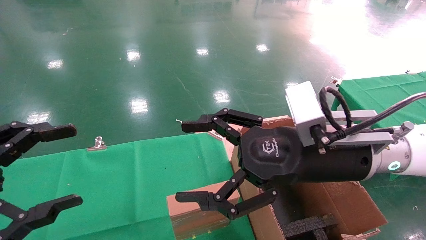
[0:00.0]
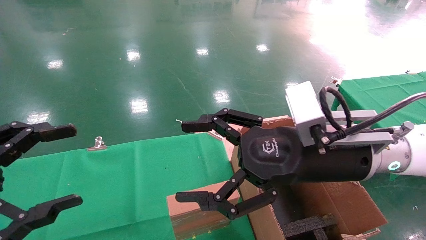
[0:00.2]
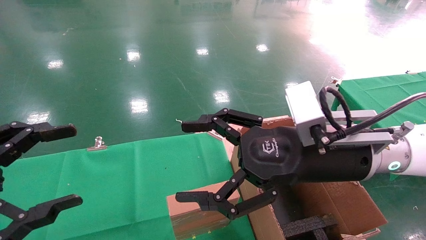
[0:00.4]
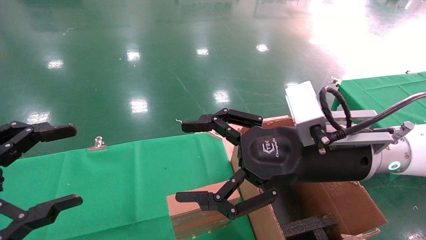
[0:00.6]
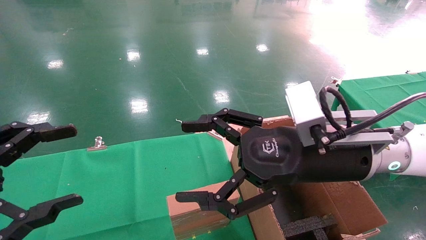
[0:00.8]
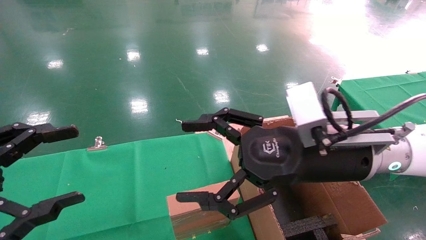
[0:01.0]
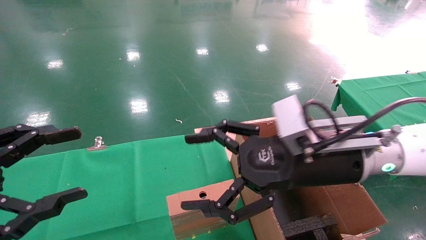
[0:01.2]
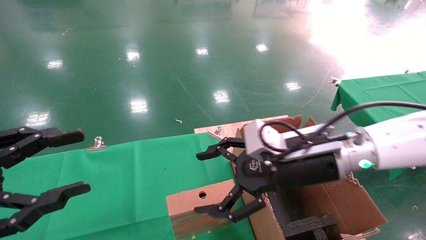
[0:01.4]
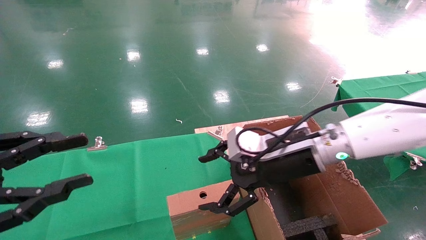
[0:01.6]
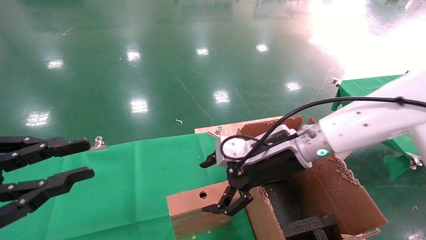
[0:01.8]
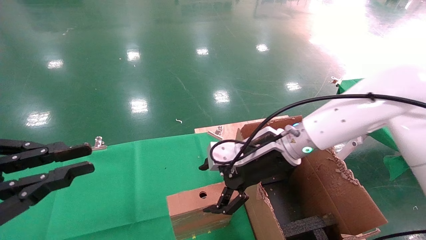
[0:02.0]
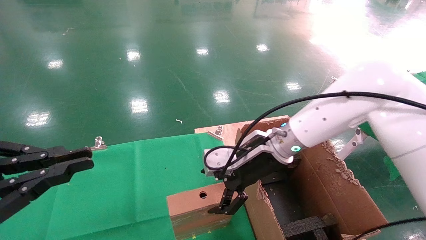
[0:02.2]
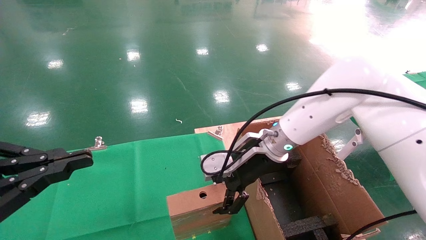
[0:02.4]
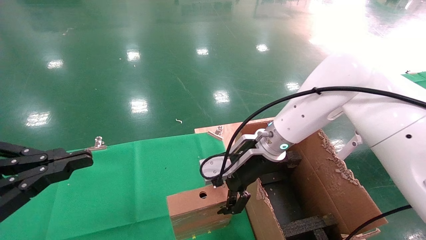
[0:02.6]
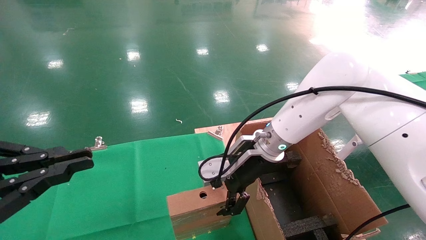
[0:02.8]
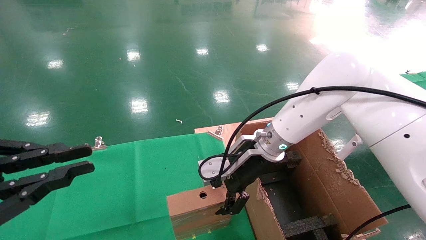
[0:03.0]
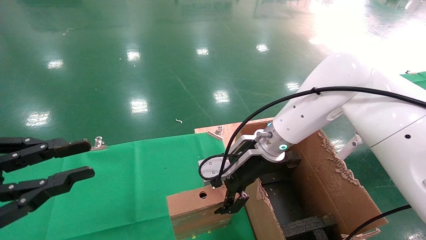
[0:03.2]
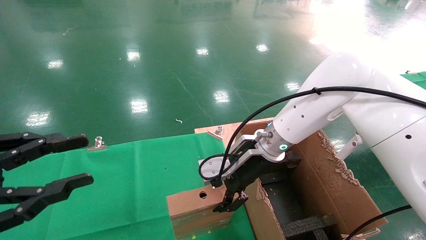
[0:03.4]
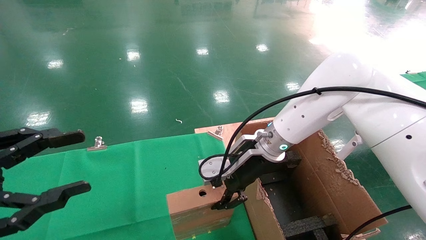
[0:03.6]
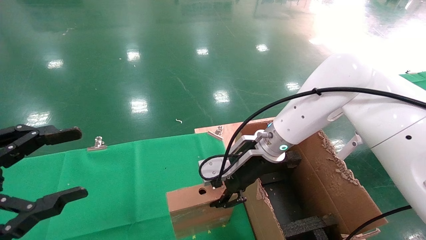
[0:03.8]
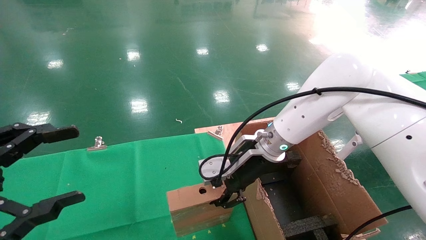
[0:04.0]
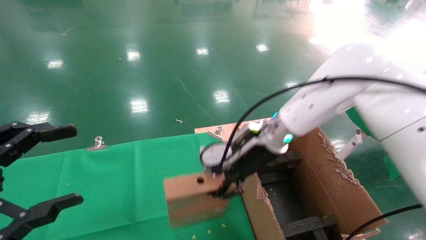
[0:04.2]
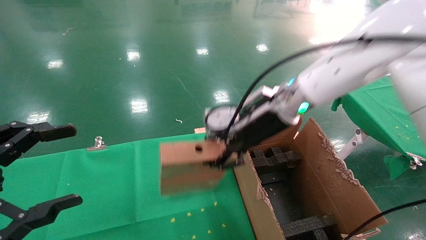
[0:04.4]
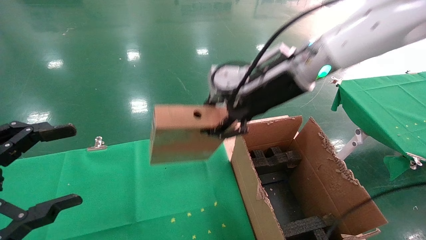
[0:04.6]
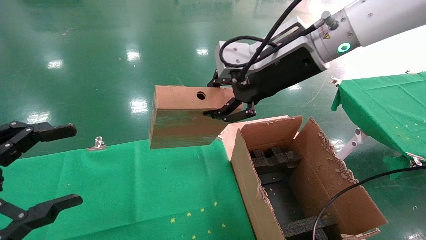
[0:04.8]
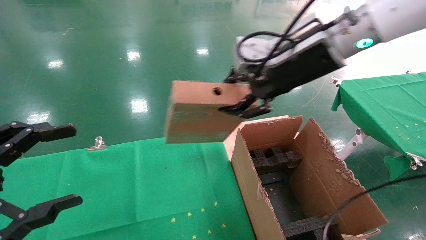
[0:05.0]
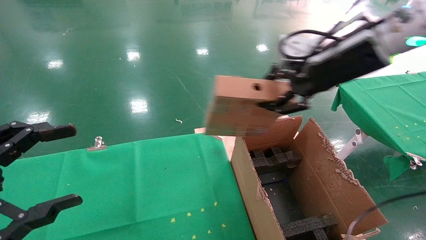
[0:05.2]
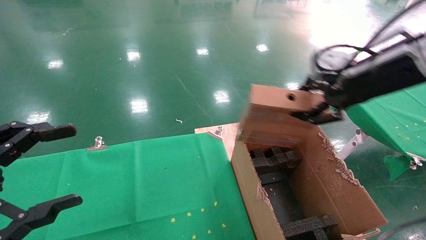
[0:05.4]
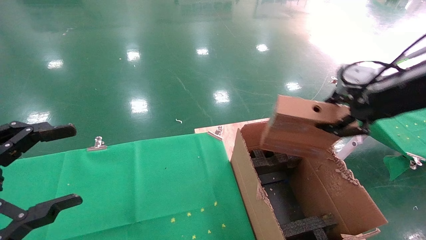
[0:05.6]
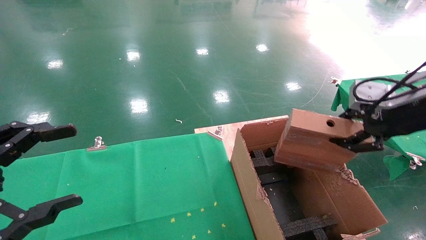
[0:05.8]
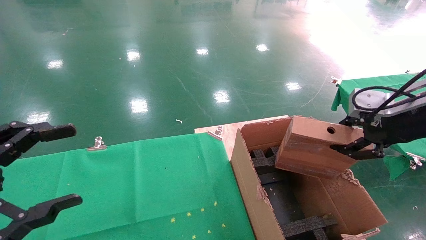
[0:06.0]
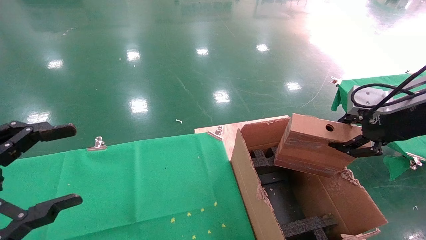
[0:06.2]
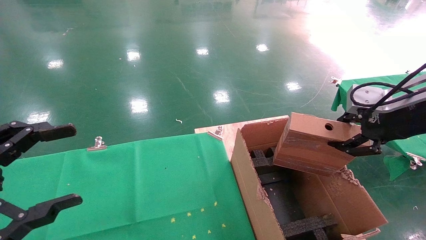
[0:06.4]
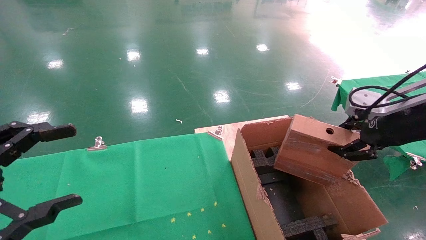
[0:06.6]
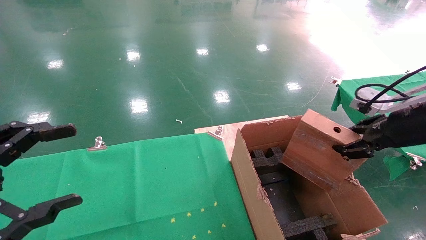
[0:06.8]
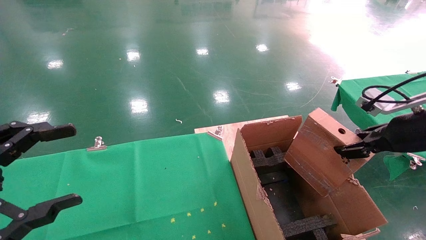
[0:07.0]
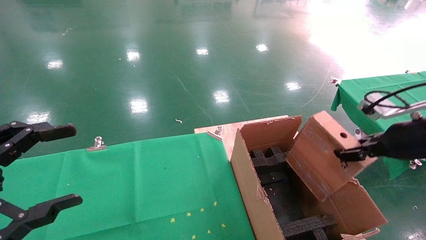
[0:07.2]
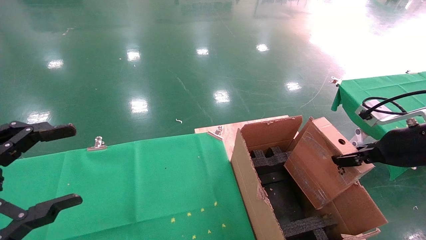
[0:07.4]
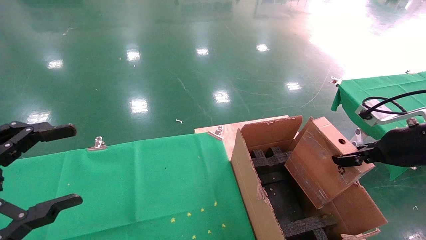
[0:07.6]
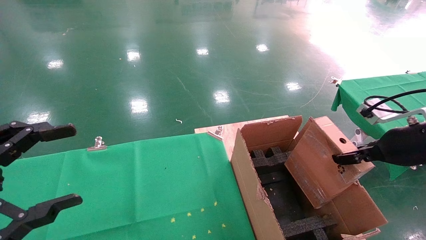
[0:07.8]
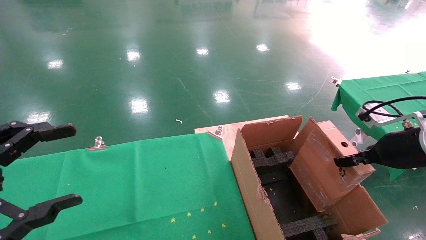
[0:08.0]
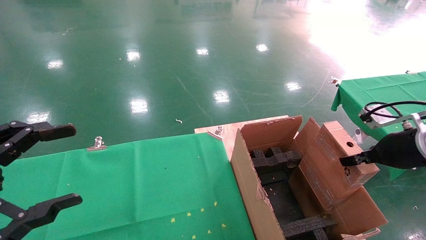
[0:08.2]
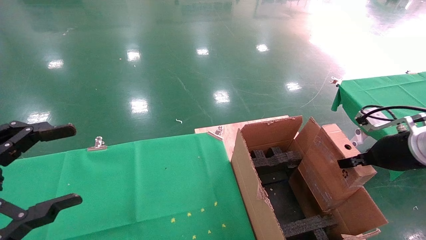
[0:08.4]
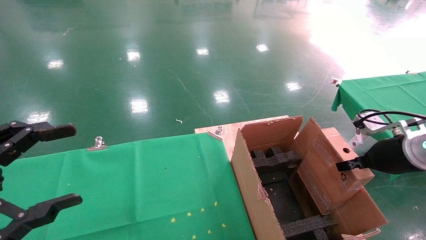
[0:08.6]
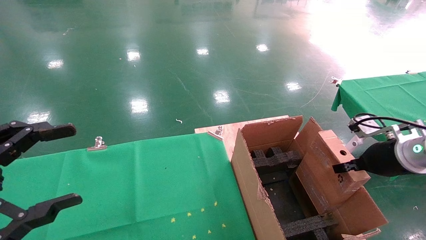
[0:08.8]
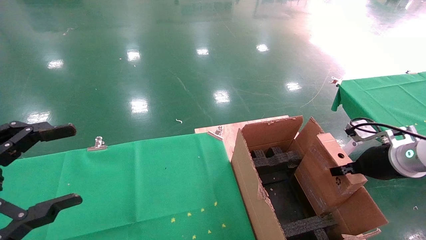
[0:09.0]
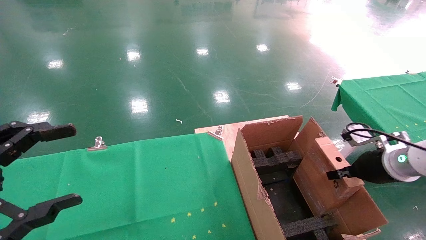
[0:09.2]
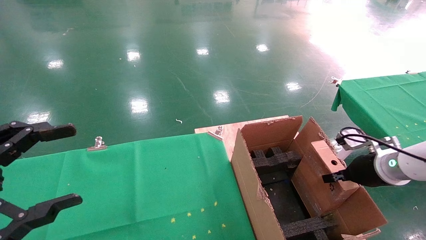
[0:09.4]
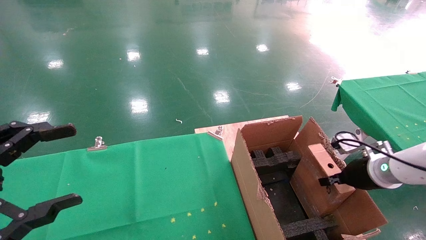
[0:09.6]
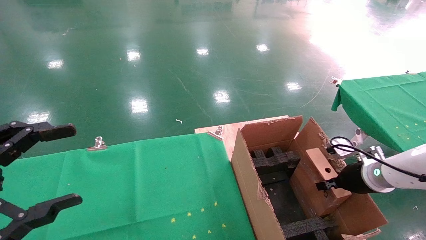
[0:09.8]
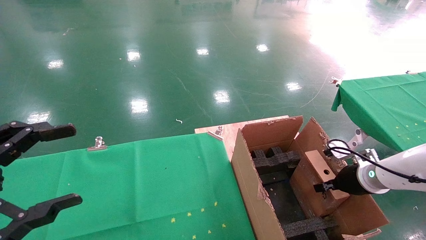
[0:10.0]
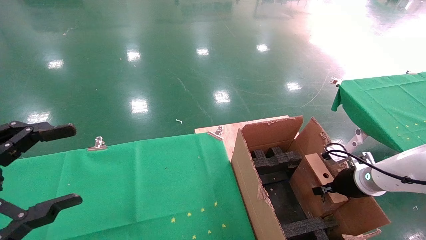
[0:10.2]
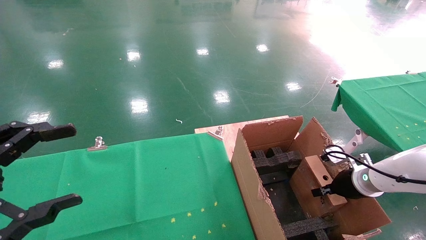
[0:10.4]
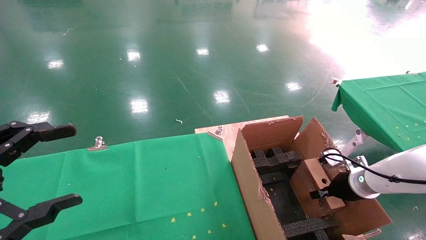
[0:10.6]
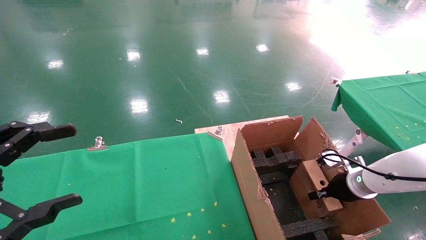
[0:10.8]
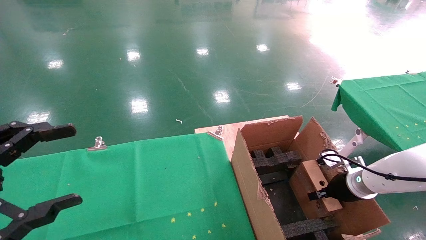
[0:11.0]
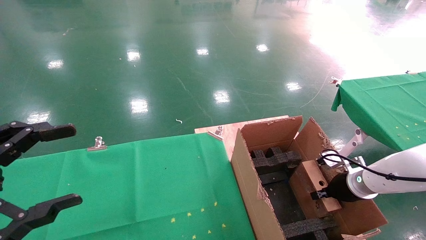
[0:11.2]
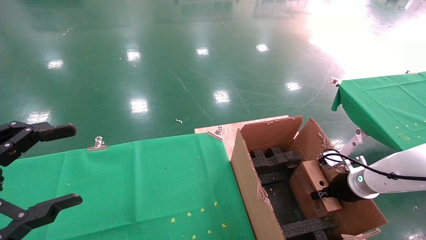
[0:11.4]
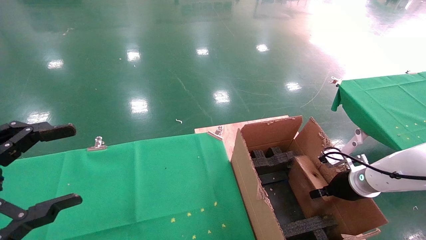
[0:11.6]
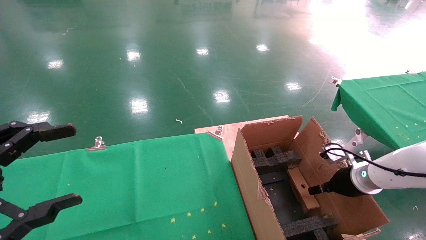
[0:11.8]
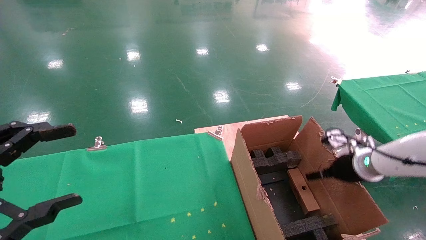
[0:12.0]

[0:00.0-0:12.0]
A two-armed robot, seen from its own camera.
Task of the whole recording: using a robotic arm to pick up a cardboard box and palace it the carton.
Step, 0:01.4 to 0:03.8: Pick up the mouse and the power cord paper box.
Step, 0:04.0 to 0:11.6: Place the mouse and the power cord paper box into the container.
0:00.0 to 0:01.6: The left gripper closes its fingers. The right gripper travels forward by about 5 cm.
0:01.6 to 0:03.0: The left gripper closes. The right gripper goes approximately 5 cm forward.
0:03.0 to 0:04.4: The left gripper opens. The right gripper moves upward, roughly 10 cm, and closes.
0:04.4 to 0:06.0: The right gripper heads to the right and backward, covering approximately 25 cm.
0:06.0 to 0:07.6: The right gripper travels downward by some 10 cm.
0:07.6 to 0:09.0: The right gripper goes approximately 5 cm downward.
0:09.0 to 0:10.4: The right gripper travels downward and forward by about 10 cm.
0:10.4 to 0:12.0: The right gripper shifts approximately 5 cm upward, and opens.

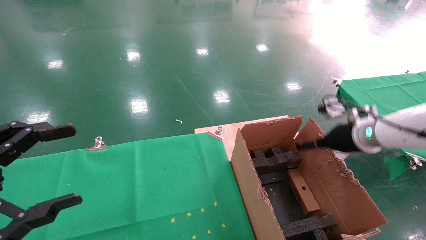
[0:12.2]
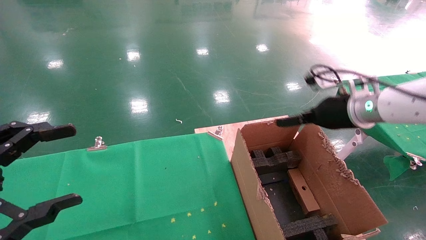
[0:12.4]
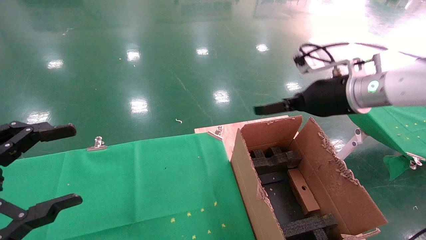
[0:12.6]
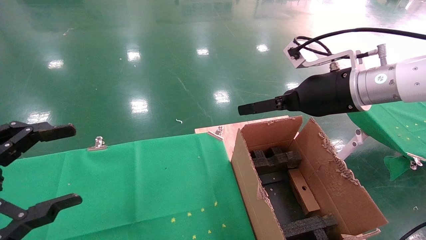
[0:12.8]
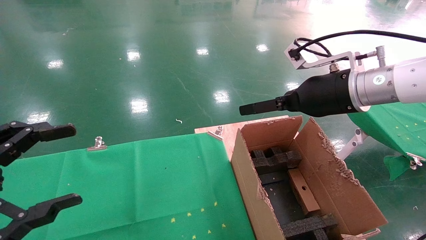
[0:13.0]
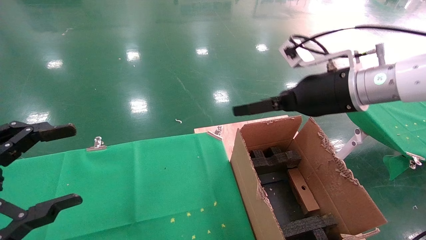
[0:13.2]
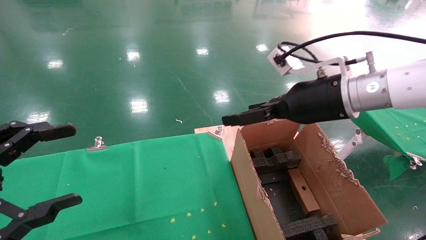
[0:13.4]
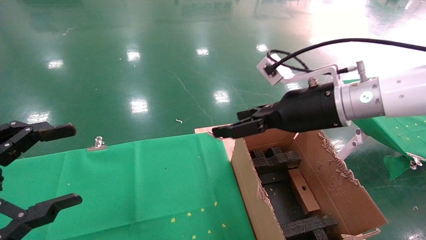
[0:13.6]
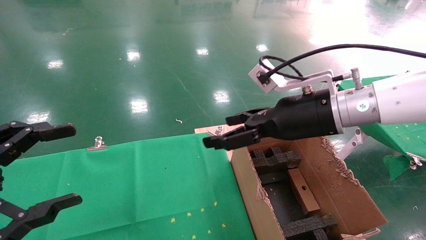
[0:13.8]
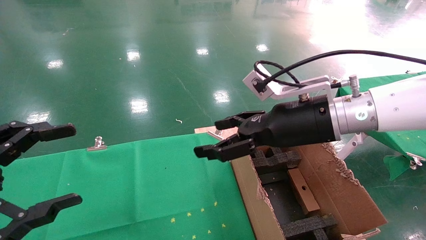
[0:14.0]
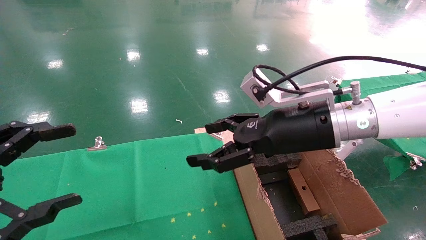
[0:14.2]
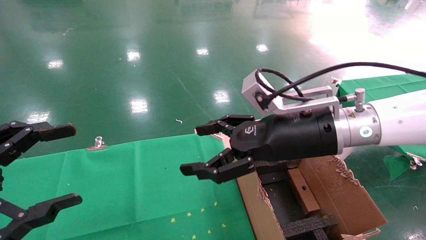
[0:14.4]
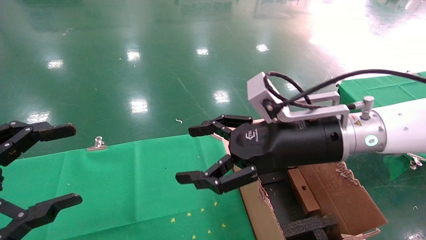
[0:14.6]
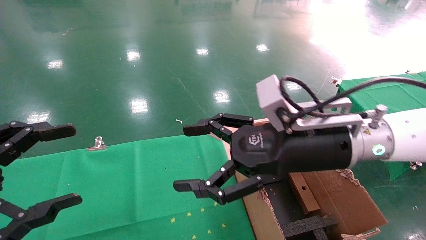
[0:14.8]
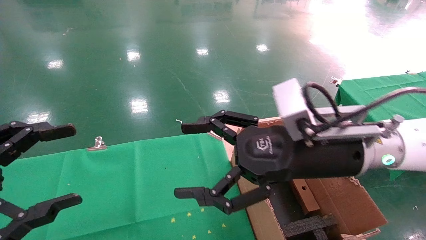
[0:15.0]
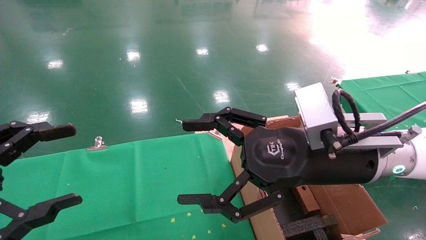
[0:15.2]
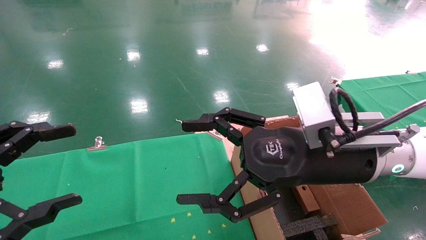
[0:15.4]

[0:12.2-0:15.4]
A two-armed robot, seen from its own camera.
Task of the whole recording: using a robotic arm to pick up a cardboard box and palace it the carton.
0:12.2 to 0:13.8: The right gripper moves to the left, upward and backward, approximately 20 cm.
0:13.8 to 0:15.4: The right gripper shifts some 5 cm backward.

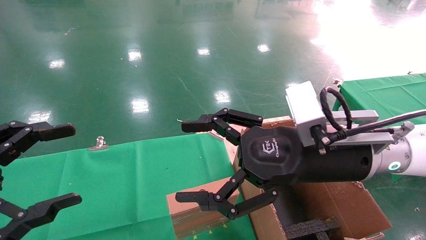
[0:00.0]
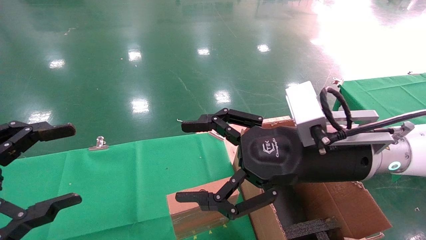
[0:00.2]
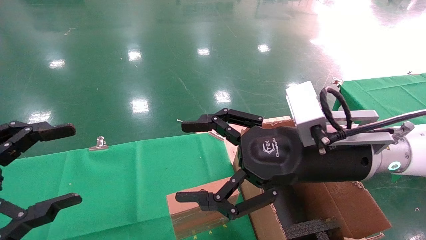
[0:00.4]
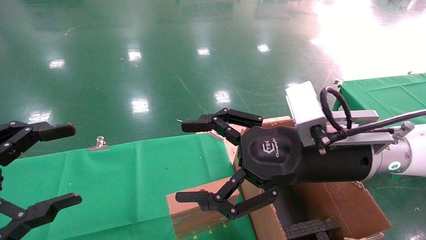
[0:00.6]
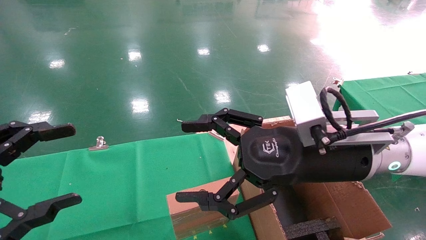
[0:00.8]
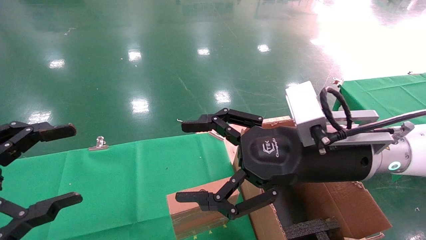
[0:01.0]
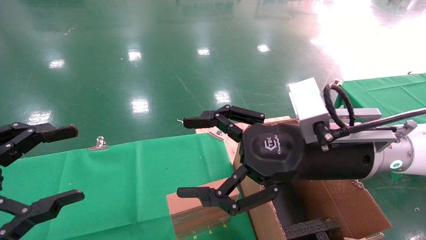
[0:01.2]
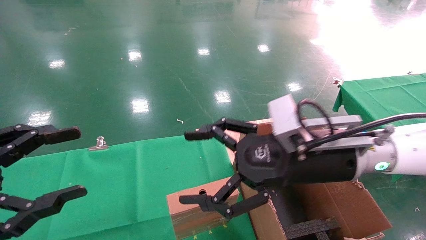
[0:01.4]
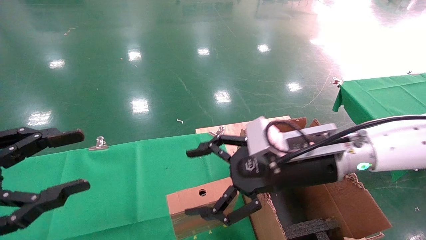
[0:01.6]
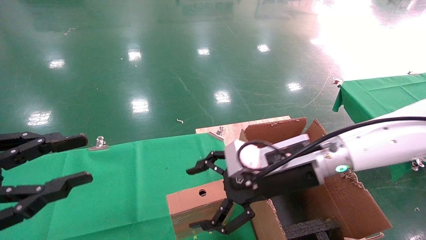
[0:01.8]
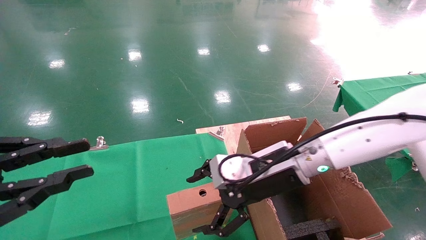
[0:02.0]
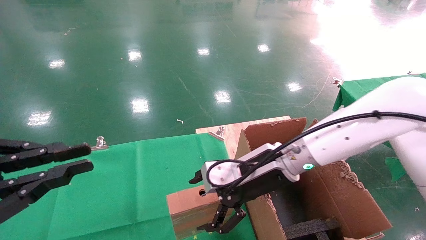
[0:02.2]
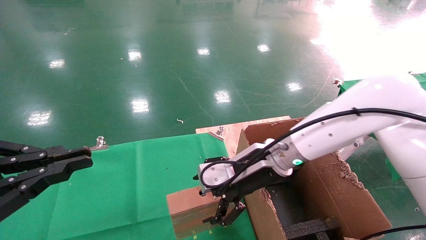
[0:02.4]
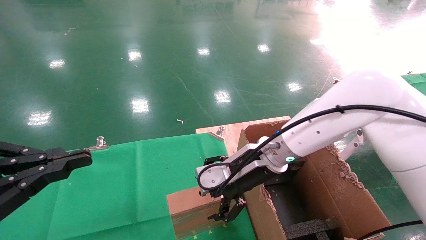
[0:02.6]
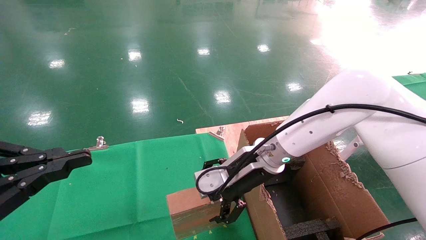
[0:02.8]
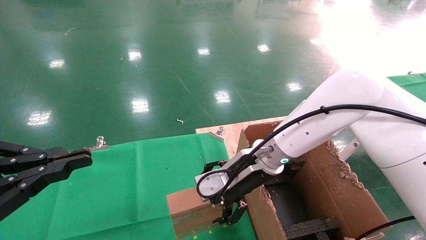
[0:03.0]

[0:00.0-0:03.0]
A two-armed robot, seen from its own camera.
Task of the whole recording: using a robotic arm to pick up a cardboard box and palace it the carton.
0:00.0 to 0:01.6: The right gripper changes place by approximately 5 cm.
0:01.6 to 0:03.0: The left gripper closes up, while the right gripper goes about 10 cm forward and to the left.
